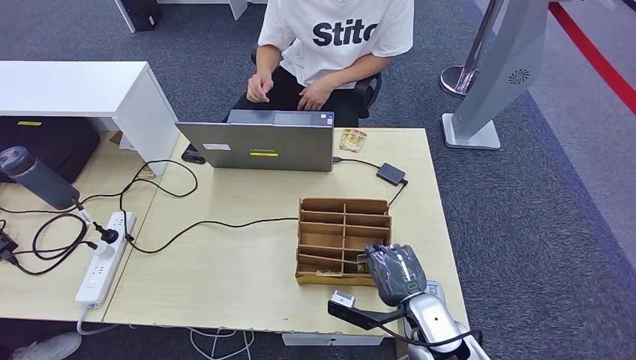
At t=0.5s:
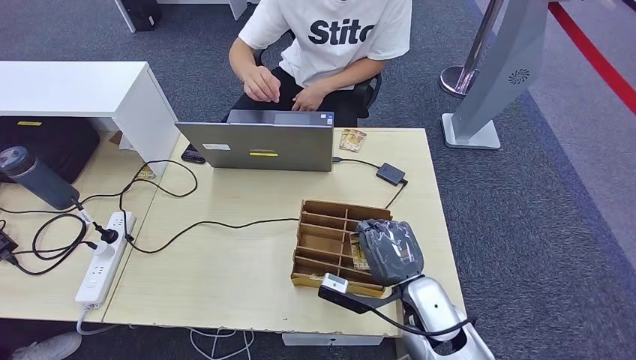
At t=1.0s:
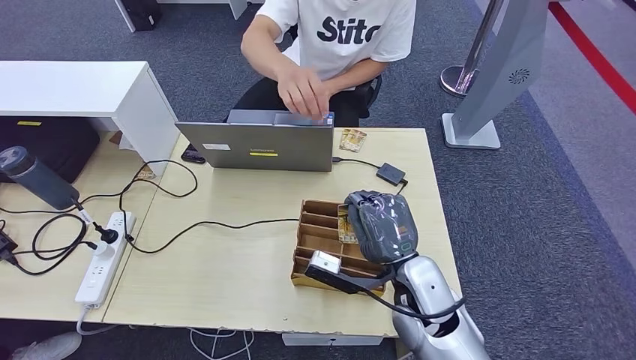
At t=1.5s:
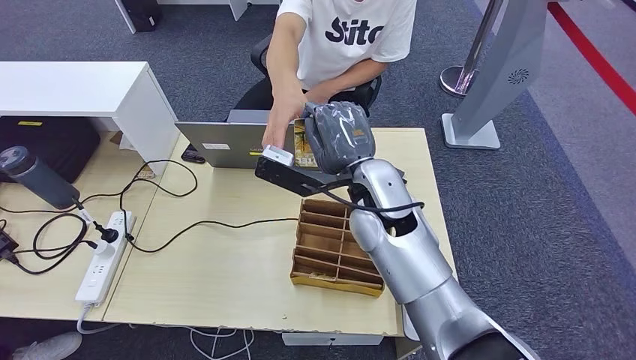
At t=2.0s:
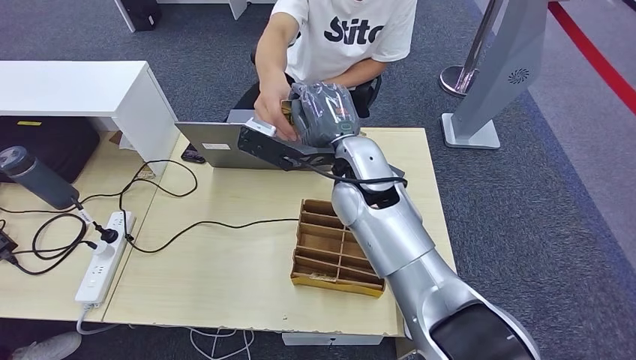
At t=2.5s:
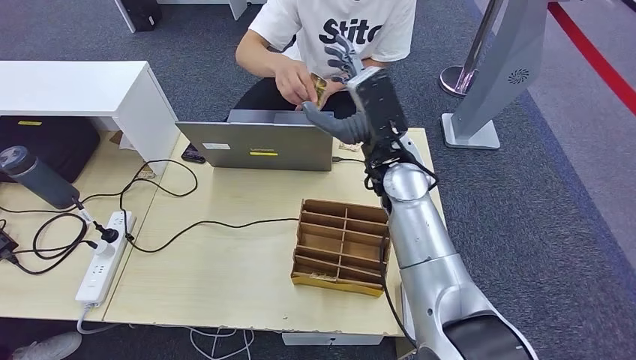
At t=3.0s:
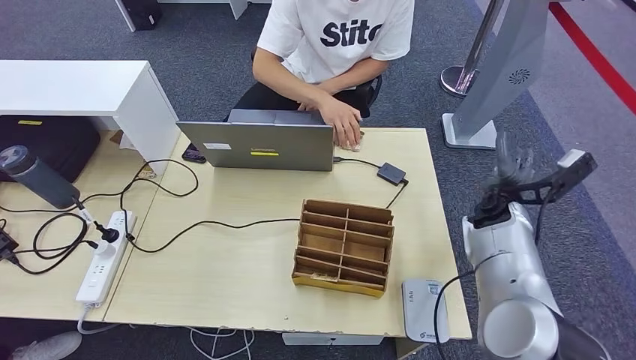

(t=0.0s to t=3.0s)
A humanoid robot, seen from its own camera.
Step, t=1.0s - t=3.0s: Hand the room key to the person.
t=0.0s - t=1.5s: The right hand shifts roughly 25 cm upward, forward and to the left.
t=1.5s - t=3.0s: The right hand goes about 25 cm to the right and downward.
